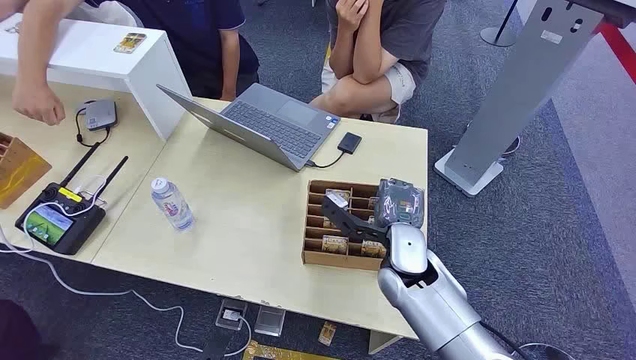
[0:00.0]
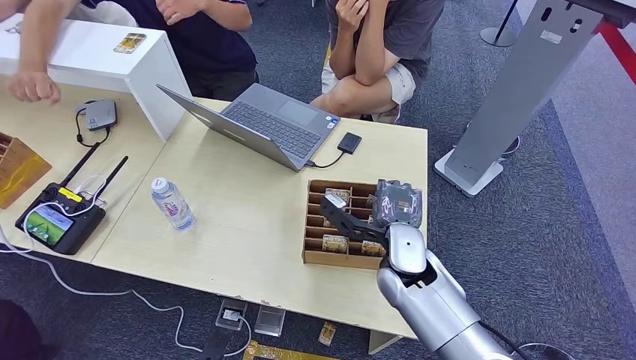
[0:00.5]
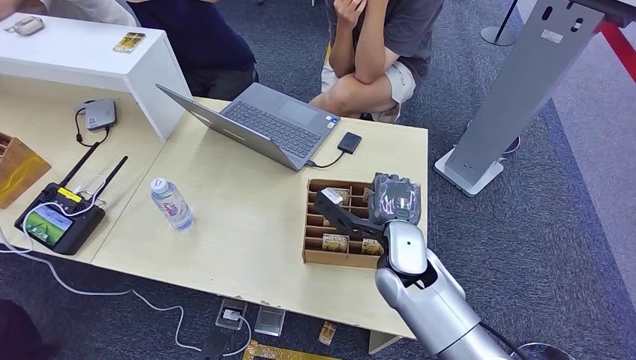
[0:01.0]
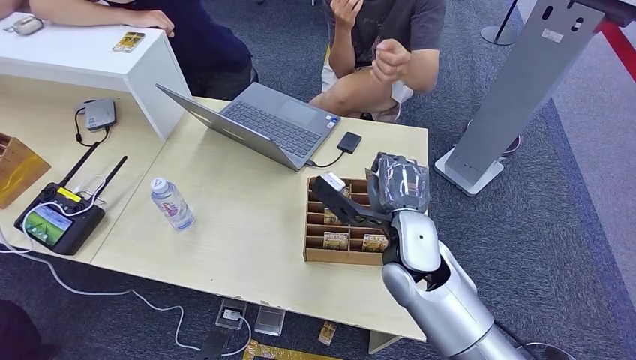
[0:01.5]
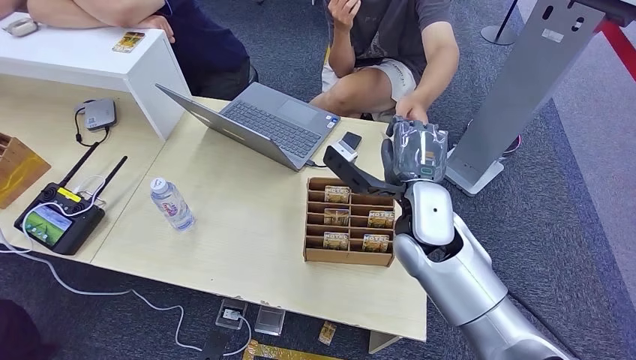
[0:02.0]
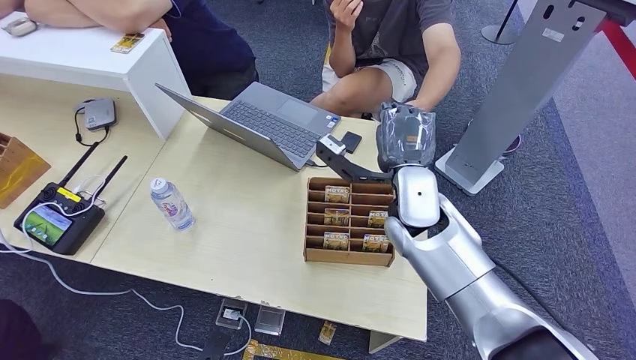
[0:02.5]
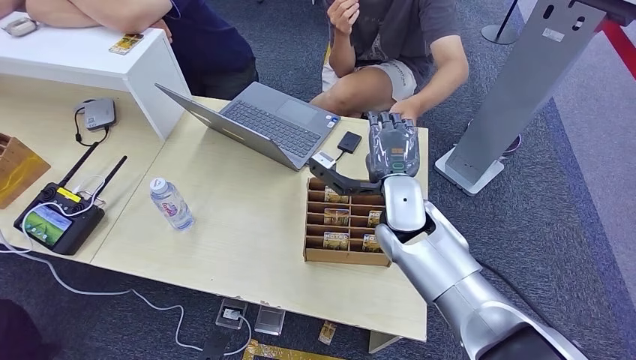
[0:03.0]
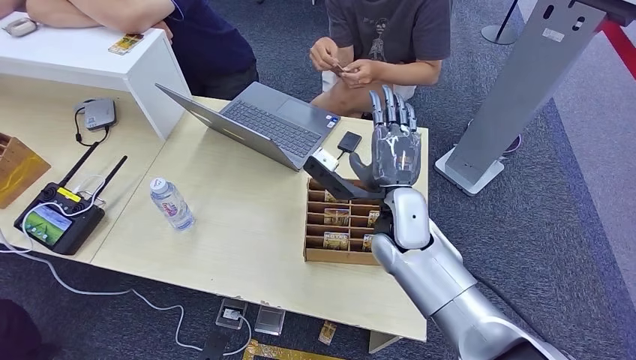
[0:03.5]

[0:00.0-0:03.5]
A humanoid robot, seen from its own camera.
Step, 0:00.0 to 0:01.0: Pick up the key card from the card box.
Step, 0:02.0 to 0:03.5: Hand the key card to the target.
0:02.0 to 0:03.5: The hands stay close to where they were, moving slightly.
